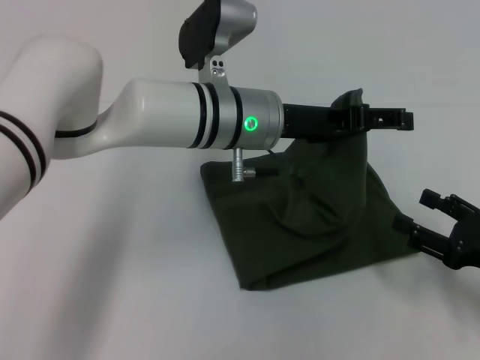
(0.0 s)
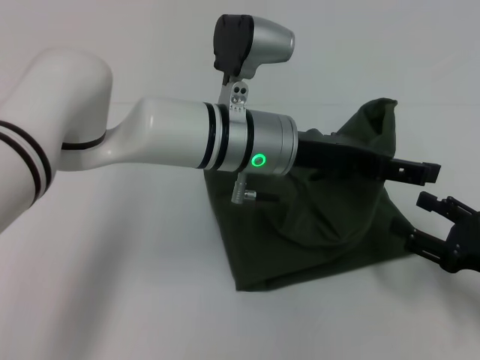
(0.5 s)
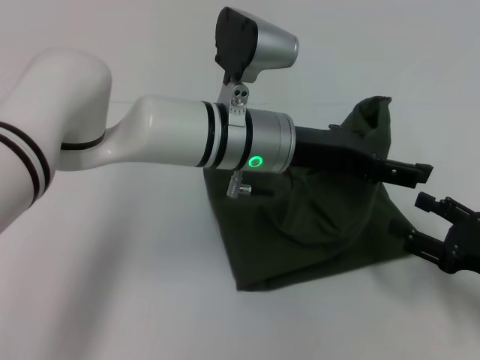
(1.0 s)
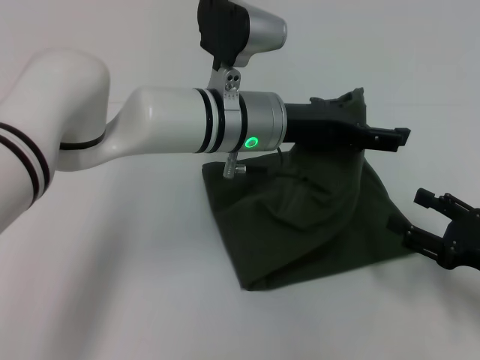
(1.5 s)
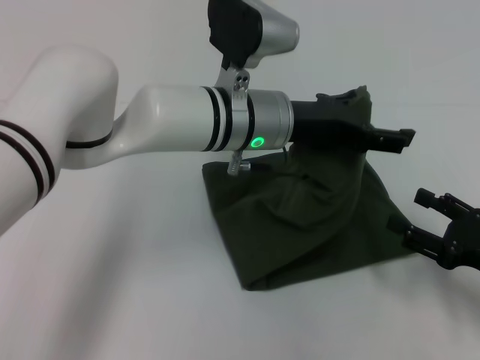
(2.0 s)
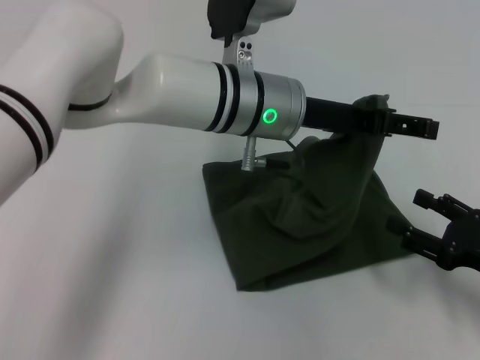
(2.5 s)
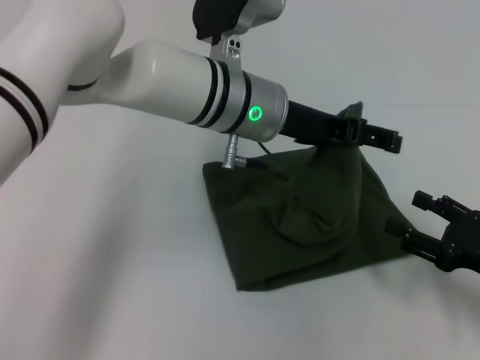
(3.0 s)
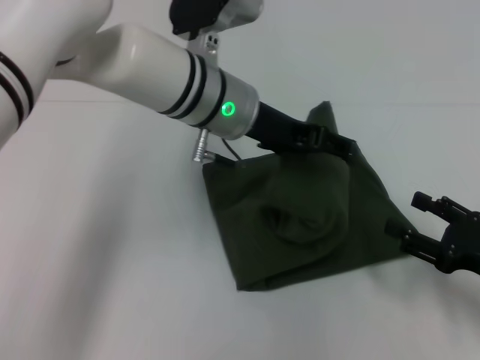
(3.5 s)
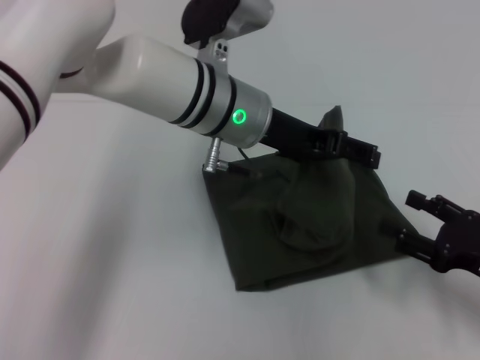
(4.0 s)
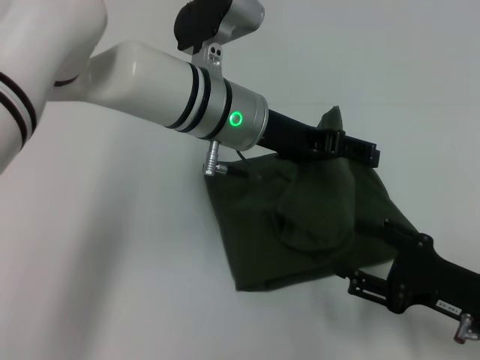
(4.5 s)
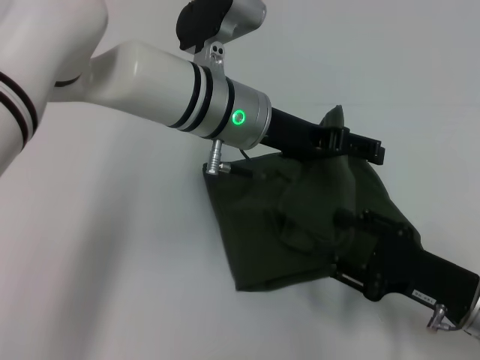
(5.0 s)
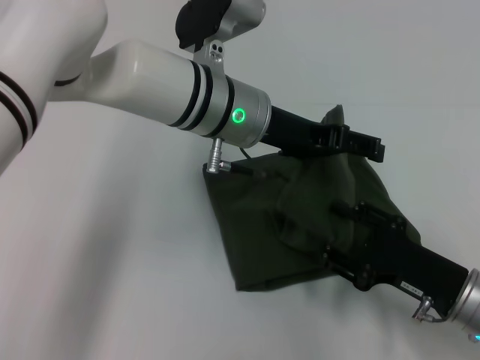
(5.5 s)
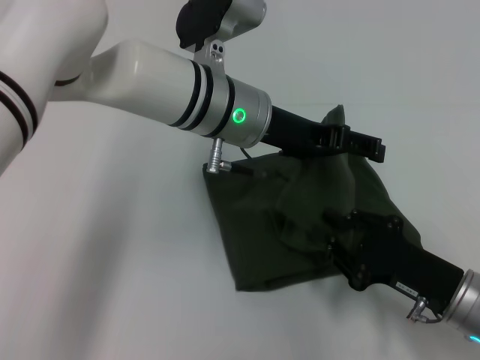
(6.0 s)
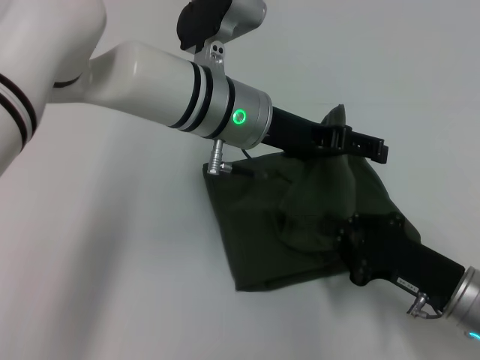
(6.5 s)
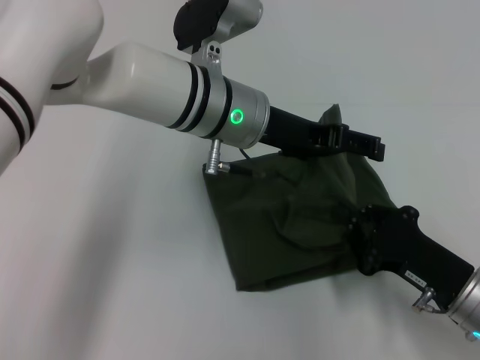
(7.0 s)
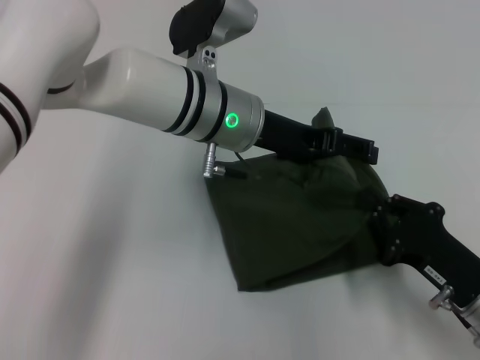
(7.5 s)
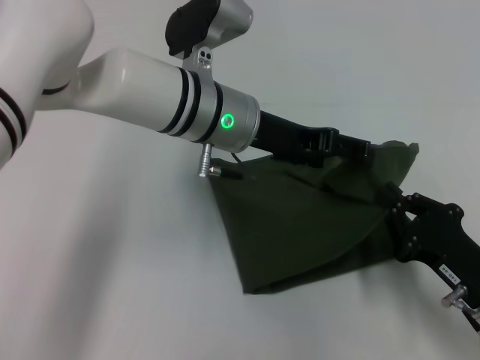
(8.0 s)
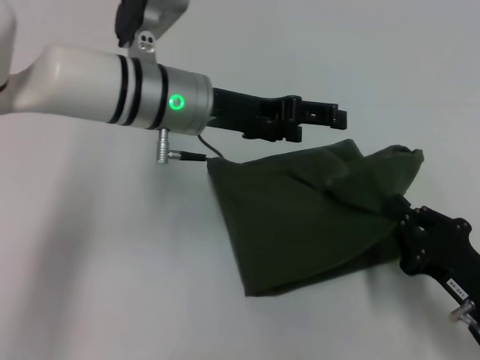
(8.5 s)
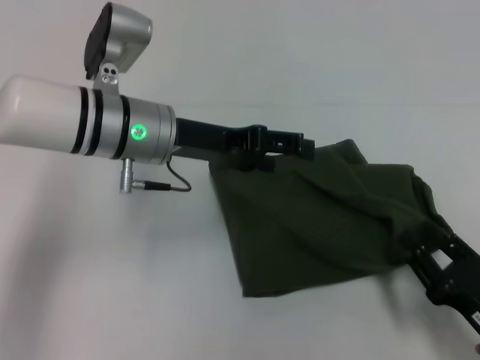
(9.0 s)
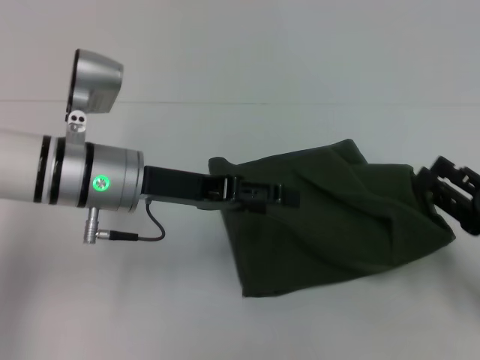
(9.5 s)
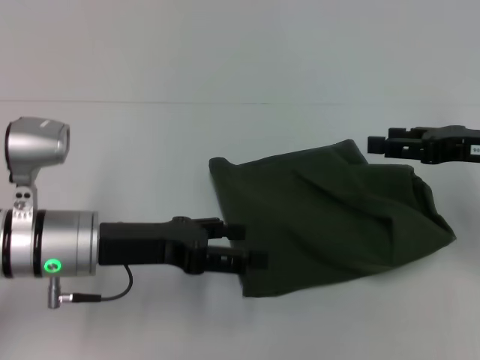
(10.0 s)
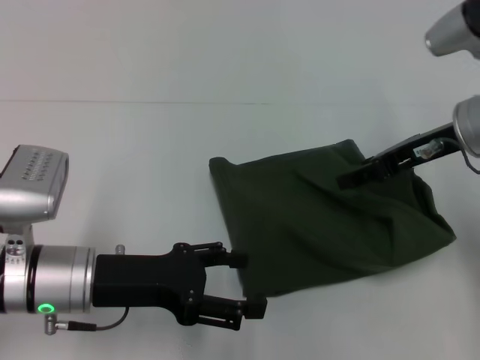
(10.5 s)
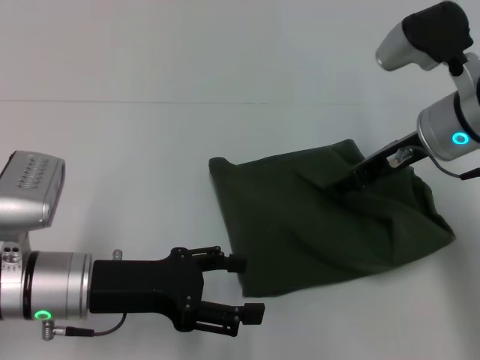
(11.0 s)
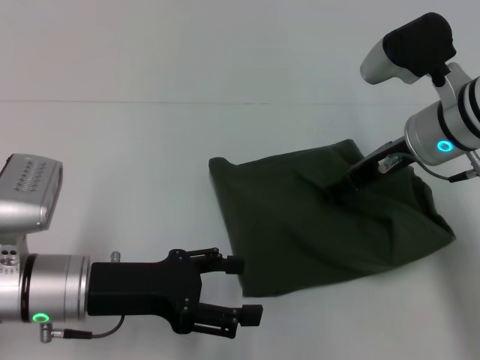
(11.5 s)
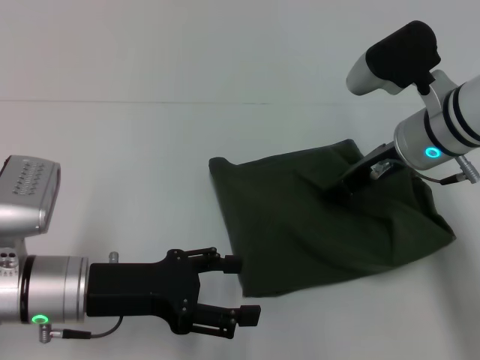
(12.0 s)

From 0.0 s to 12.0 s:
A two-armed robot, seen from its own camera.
From 4.0 s to 6.0 s: The right gripper shifts some 10 cm to the left.
From 6.0 s to 8.0 s: The right gripper closes up.
From 8.0 s to 10.0 s: The left gripper heads to the left, backward and downward, covering about 20 cm. Meanwhile the right gripper heads upward and forward, covering approximately 20 cm, and opens up.
From 10.0 s to 12.0 s: The right gripper is displaced to the left and forward by some 15 cm.

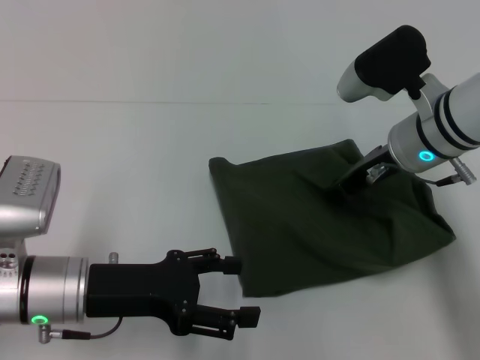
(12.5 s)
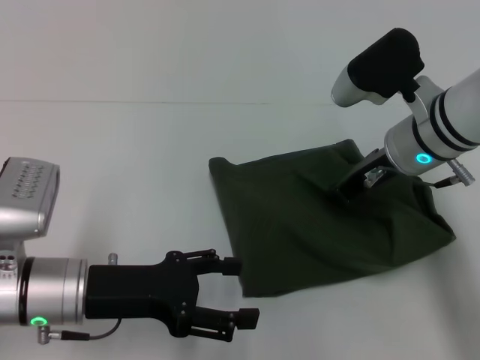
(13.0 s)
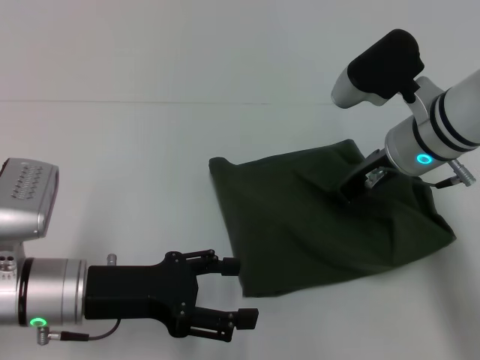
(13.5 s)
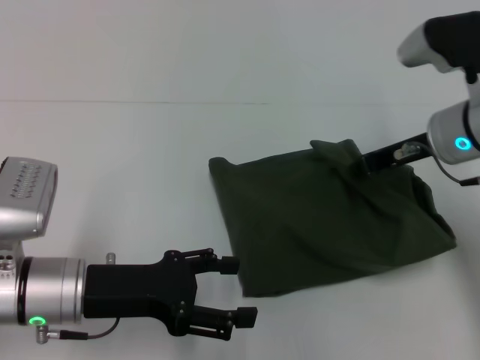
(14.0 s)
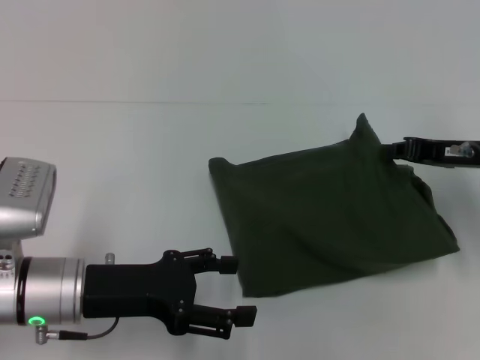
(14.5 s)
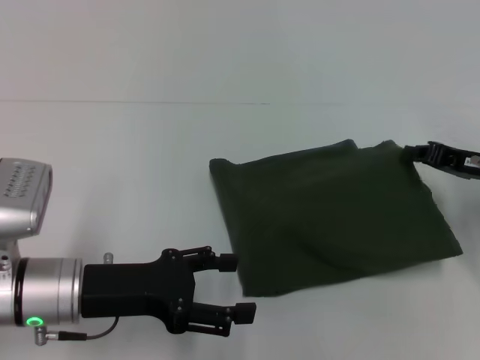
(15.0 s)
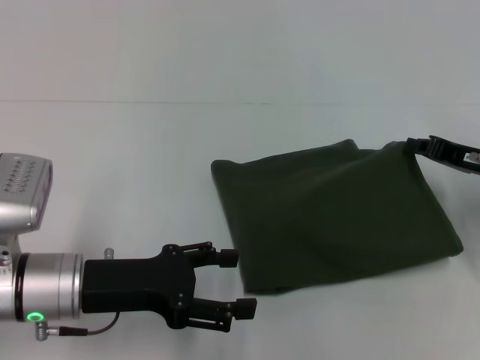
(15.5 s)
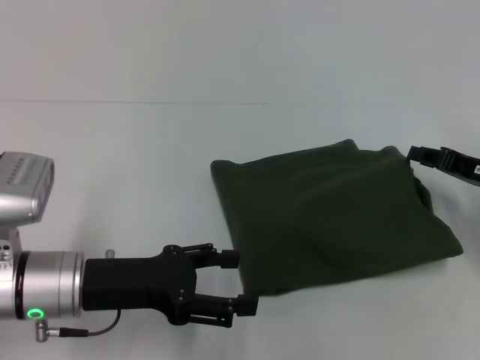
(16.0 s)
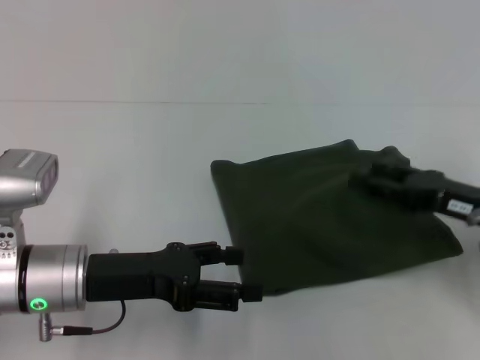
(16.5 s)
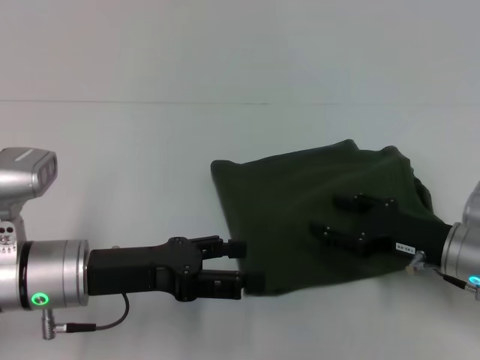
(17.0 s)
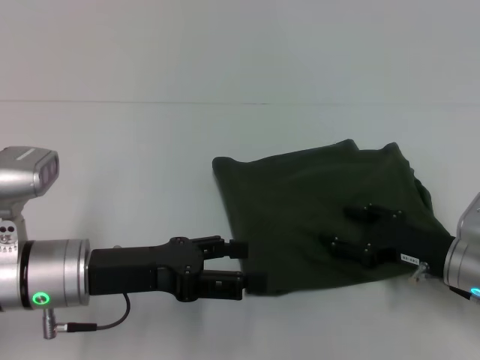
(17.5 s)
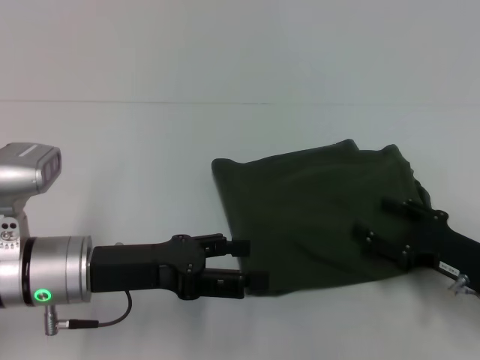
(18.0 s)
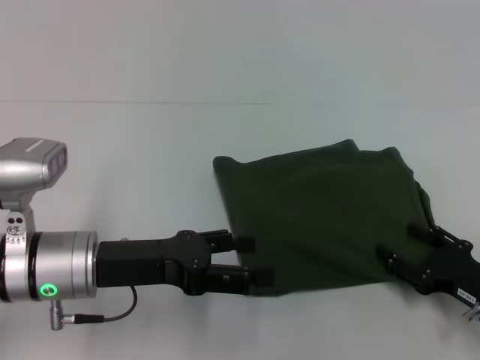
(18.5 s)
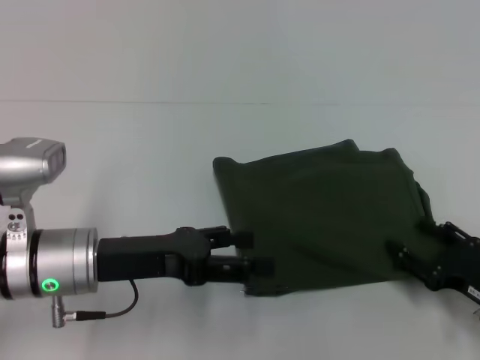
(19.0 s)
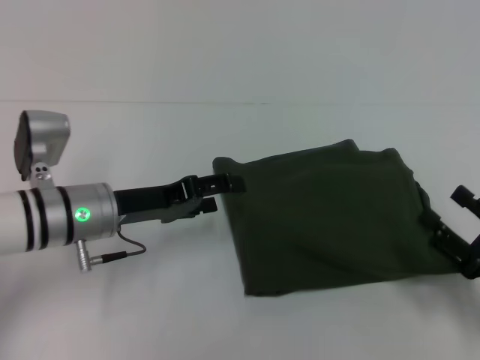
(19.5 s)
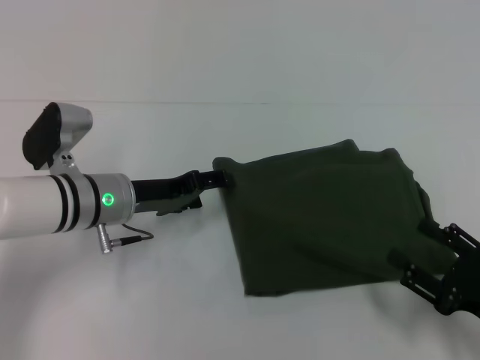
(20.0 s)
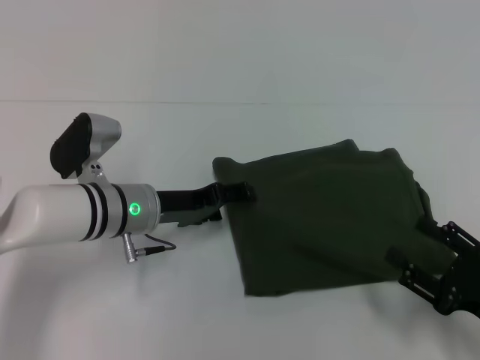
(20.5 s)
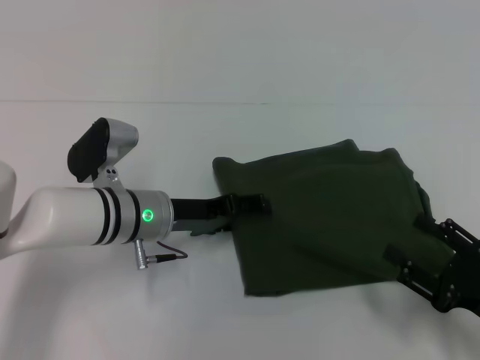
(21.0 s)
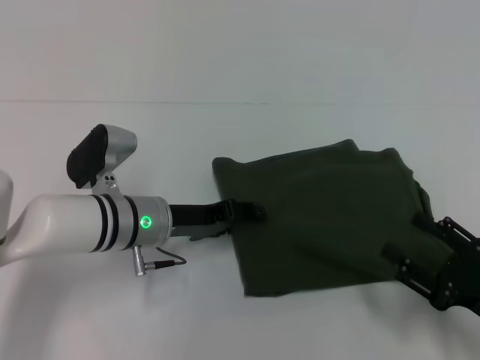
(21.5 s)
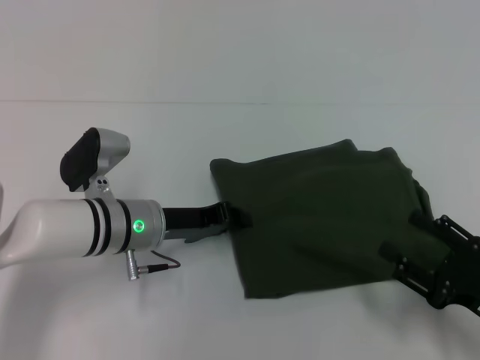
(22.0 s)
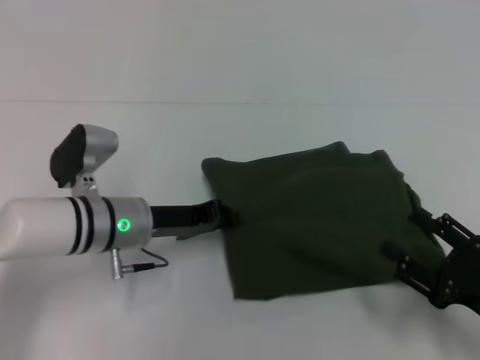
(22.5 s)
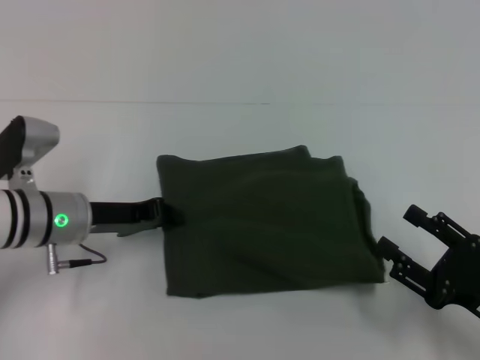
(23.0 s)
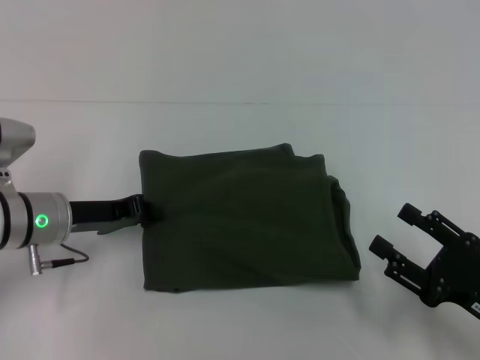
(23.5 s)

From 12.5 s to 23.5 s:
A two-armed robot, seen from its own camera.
From 12.5 s to 14.5 s: The right gripper moves to the right, about 10 cm.
From 14.5 s to 16.0 s: The right gripper changes place by approximately 5 cm.
From 16.0 s to 18.0 s: The right gripper shifts roughly 10 cm backward and downward, and opens.
From 18.0 s to 20.0 s: The right gripper goes roughly 5 cm backward; the left gripper heads forward, covering approximately 10 cm.
From 20.0 s to 21.5 s: The grippers stay close to where they were, moving slightly.
From 21.5 s to 23.5 s: The left gripper moves to the left, approximately 10 cm, and closes.

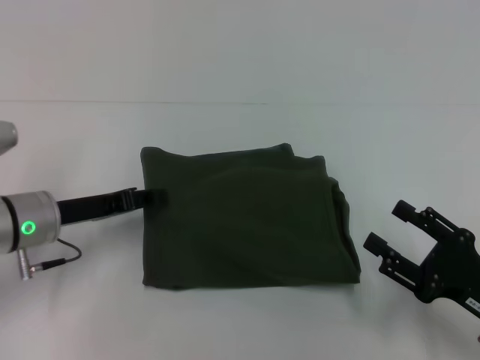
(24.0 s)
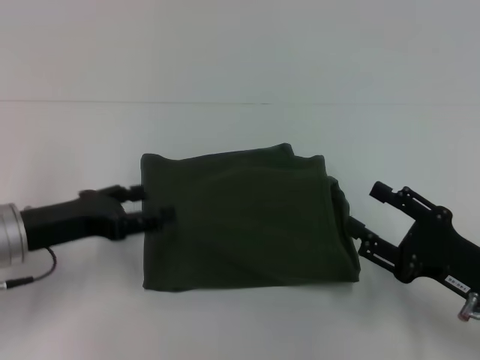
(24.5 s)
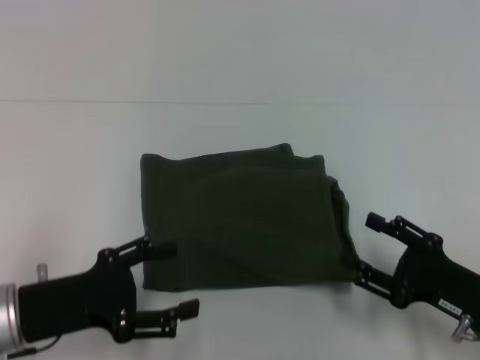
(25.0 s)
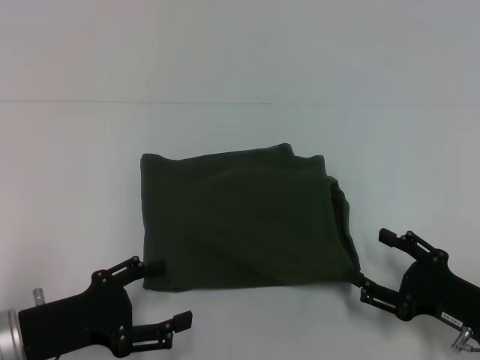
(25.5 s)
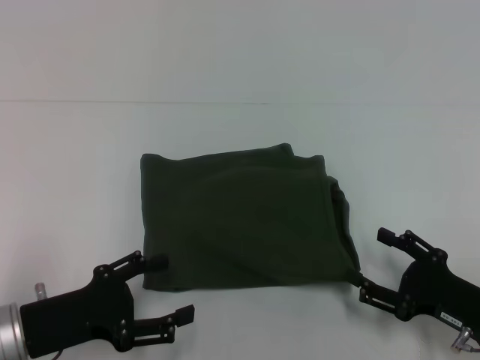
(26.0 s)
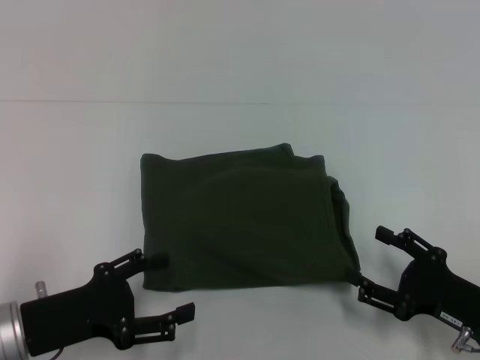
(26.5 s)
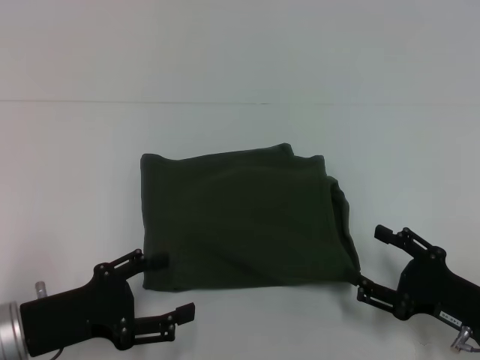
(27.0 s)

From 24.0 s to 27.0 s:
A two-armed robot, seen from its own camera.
Step, from 24.0 s to 27.0 s: Fold the clothes with your left hand.
From 24.0 s to 25.5 s: The left gripper heads backward, covering about 10 cm, and opens up.
From 25.5 s to 27.0 s: Both grippers stay about where they are.
